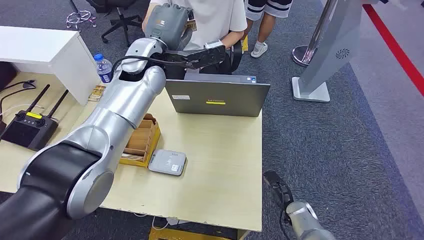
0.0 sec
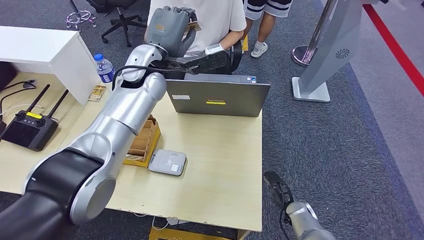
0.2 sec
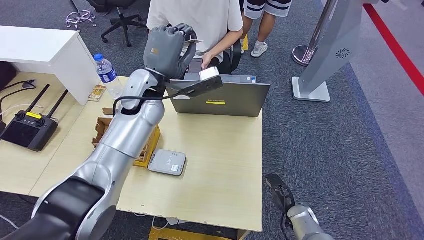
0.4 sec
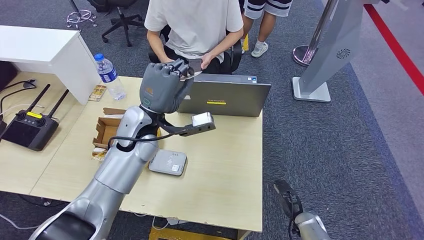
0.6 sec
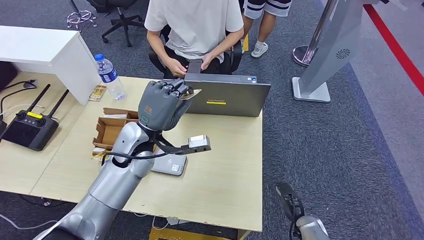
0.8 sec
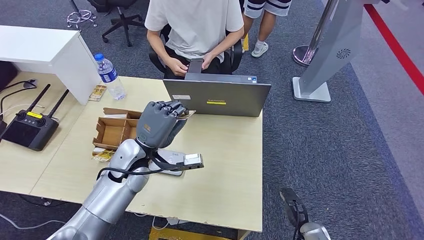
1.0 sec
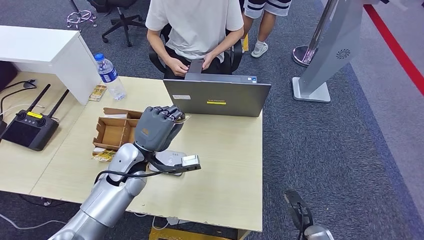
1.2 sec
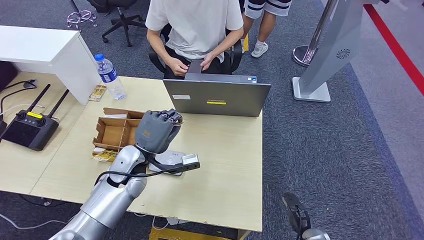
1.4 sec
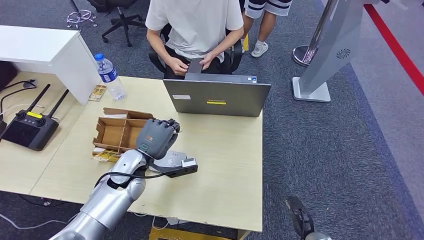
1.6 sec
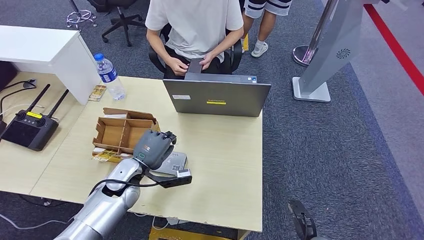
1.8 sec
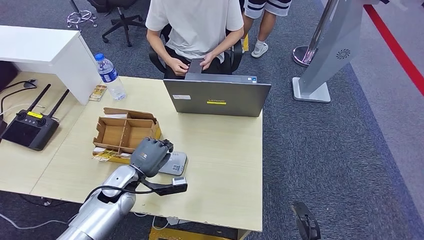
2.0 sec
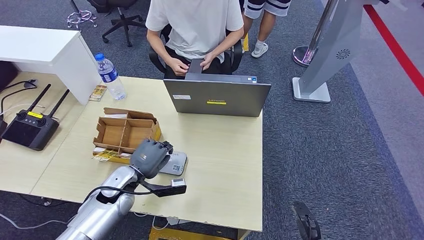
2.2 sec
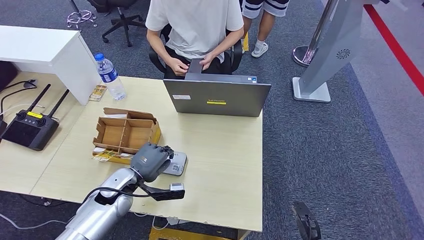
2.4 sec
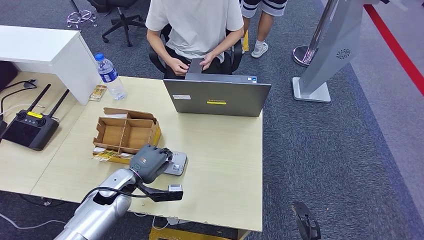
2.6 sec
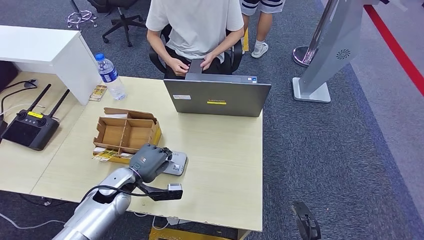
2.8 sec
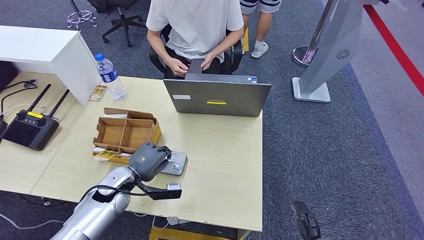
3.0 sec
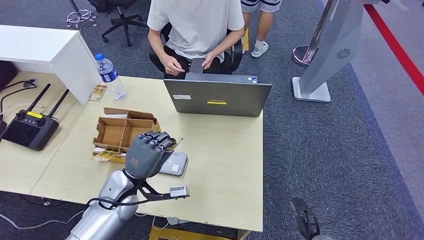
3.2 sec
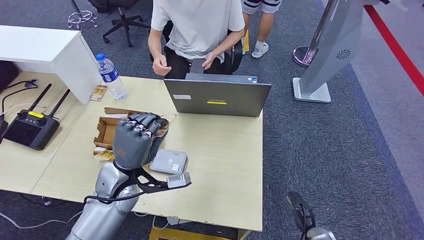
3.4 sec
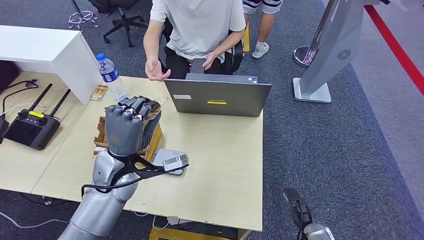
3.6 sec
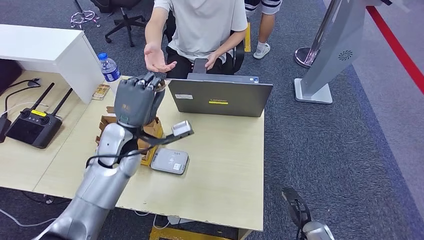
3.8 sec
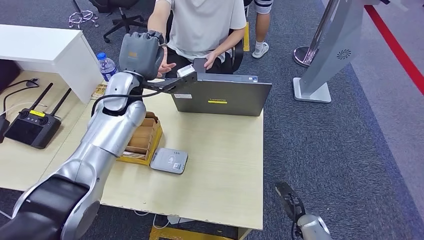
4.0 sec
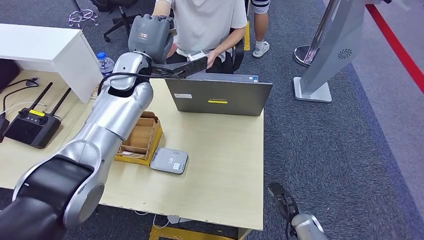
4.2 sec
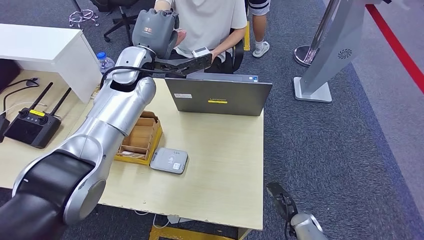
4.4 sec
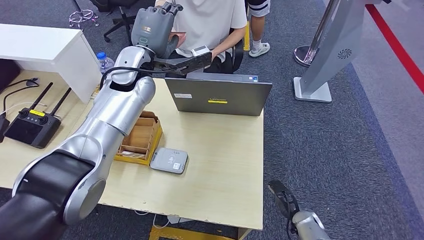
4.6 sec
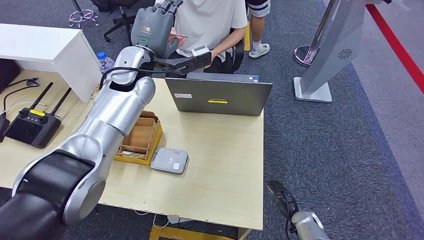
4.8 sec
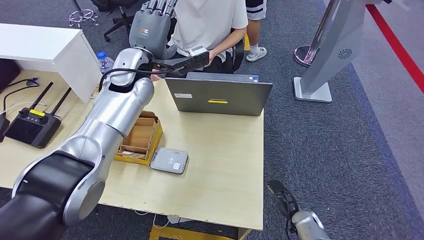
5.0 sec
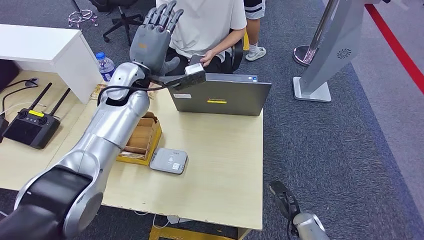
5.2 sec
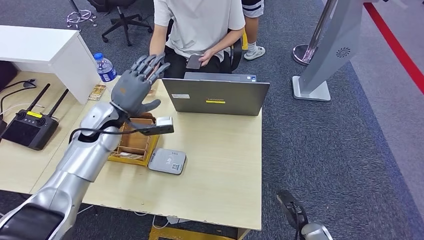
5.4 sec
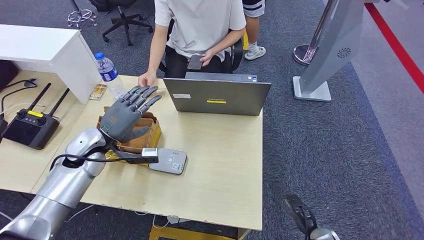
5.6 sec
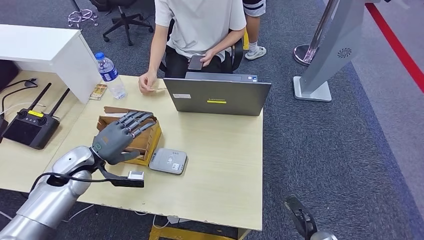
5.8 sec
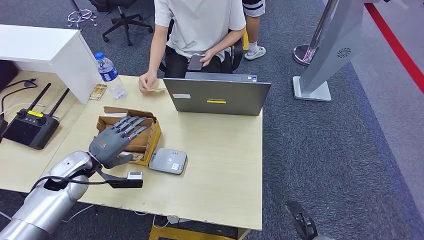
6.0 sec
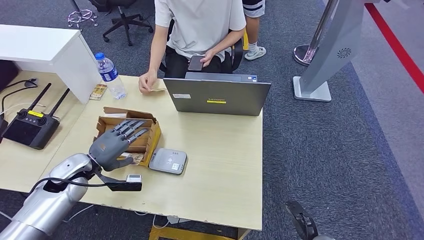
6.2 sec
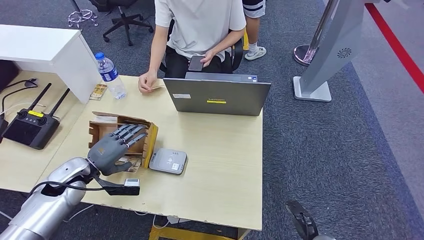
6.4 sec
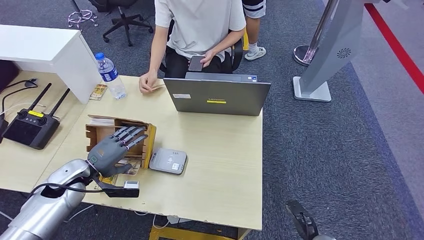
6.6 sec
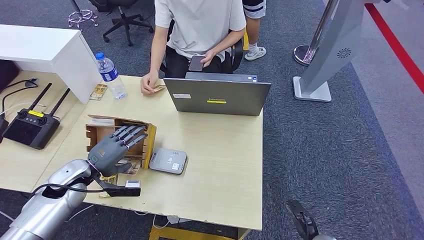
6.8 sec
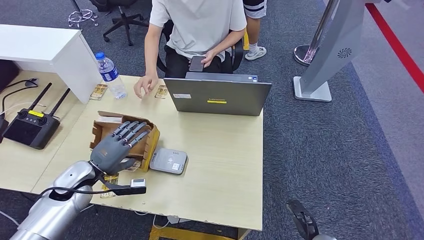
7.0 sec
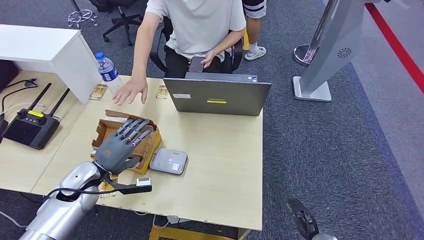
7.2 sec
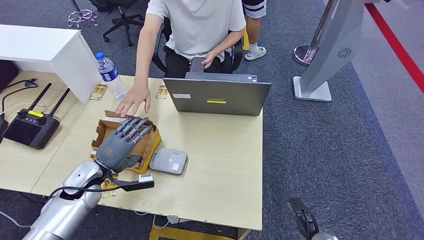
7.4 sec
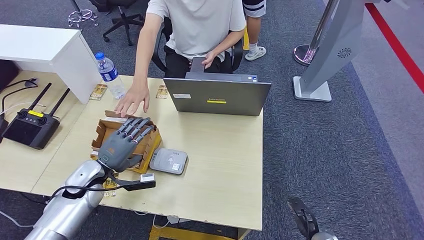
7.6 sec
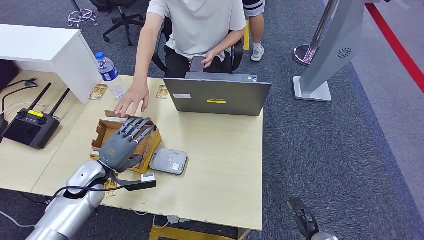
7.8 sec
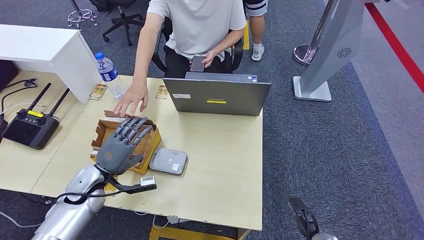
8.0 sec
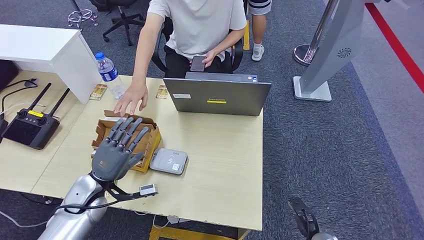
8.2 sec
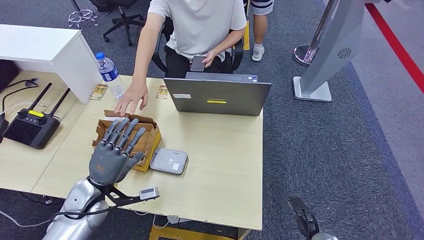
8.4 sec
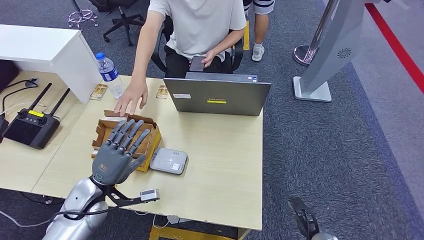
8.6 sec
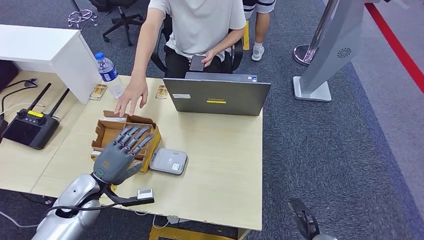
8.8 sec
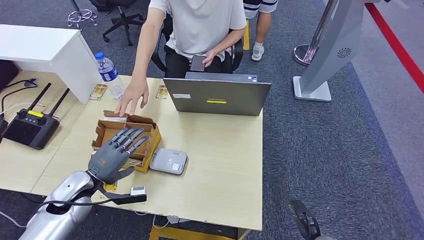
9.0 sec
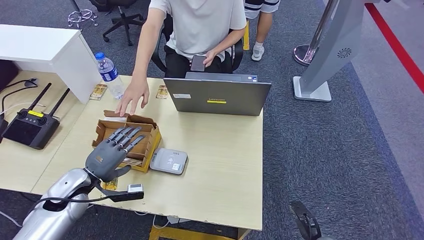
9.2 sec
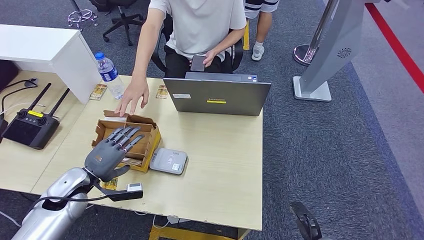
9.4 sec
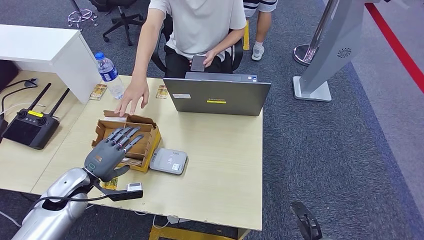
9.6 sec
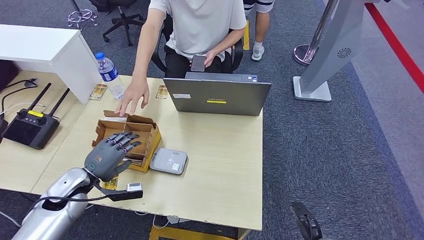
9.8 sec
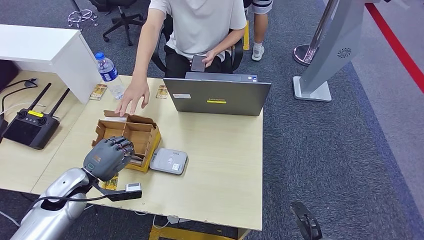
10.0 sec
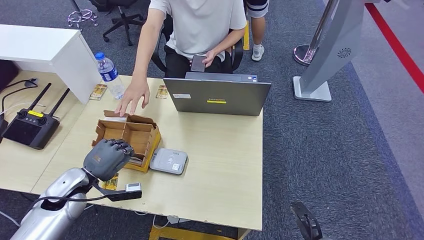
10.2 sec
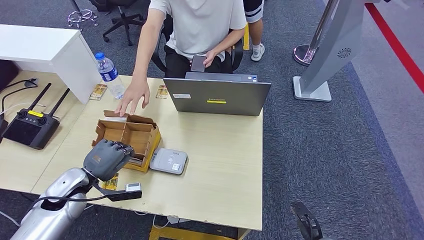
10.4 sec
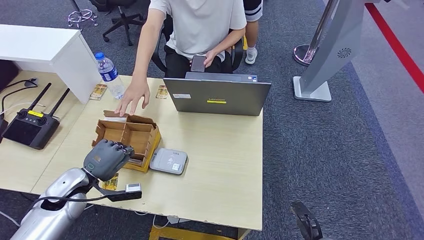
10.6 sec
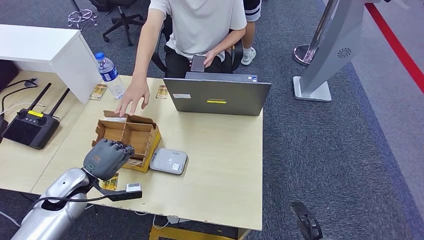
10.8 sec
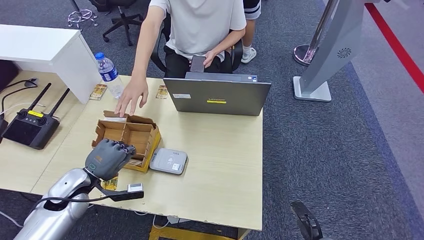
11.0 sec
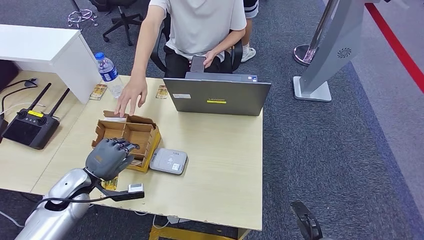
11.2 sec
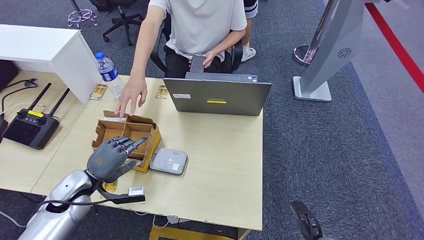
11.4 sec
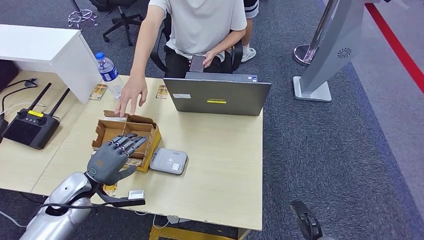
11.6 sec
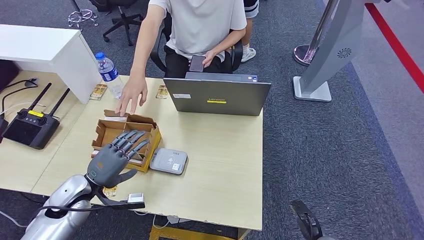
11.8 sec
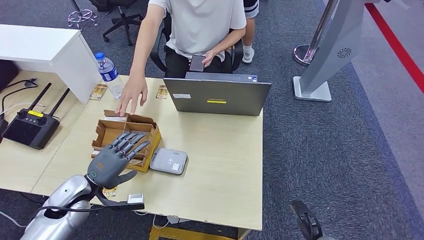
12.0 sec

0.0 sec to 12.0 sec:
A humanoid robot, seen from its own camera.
Step, 0.0 sec to 2.2 sec: Take the ID card from the person's hand.
Step, 2.6 sec to 4.0 sec: Place the ID card on the card reader.
Step, 4.2 sec to 5.8 sec: Hand the ID card to the person.
1.6 sec to 3.0 sec: The left hand heads to the left and downward, covering about 5 cm.
6.0 sec to 7.6 sec: There are only small adjustments of the hands.
9.0 sec to 12.0 sec: There are only small adjustments of the hands.

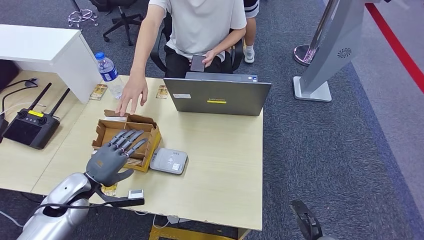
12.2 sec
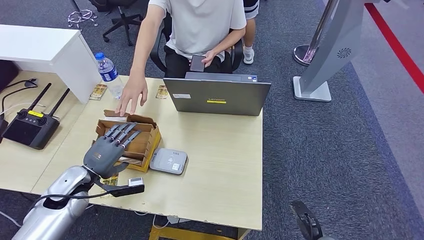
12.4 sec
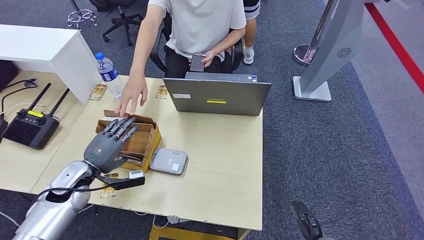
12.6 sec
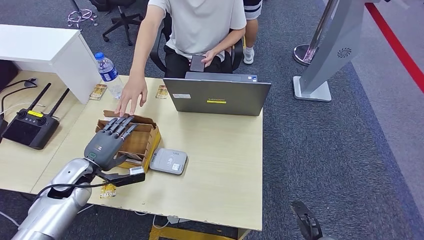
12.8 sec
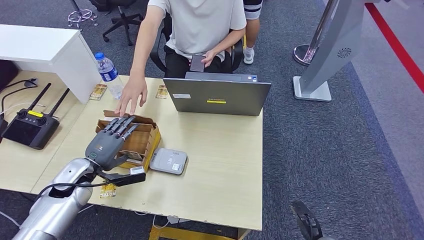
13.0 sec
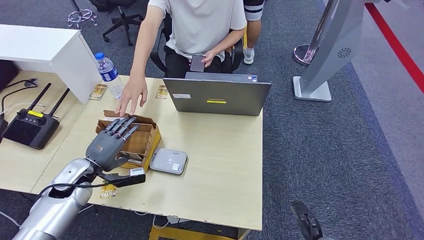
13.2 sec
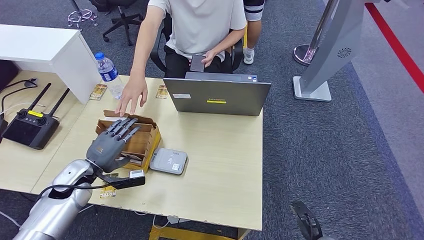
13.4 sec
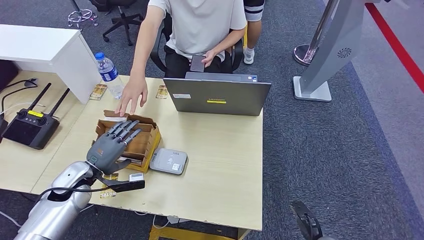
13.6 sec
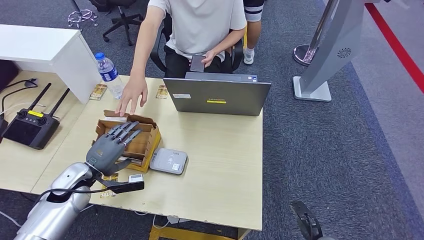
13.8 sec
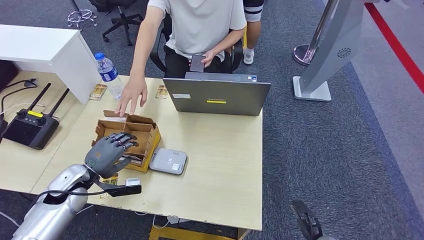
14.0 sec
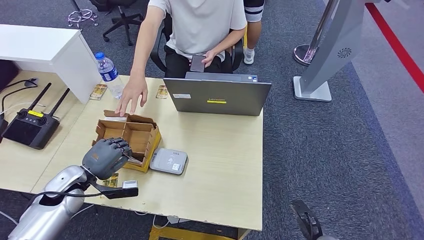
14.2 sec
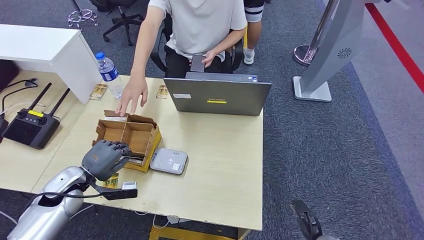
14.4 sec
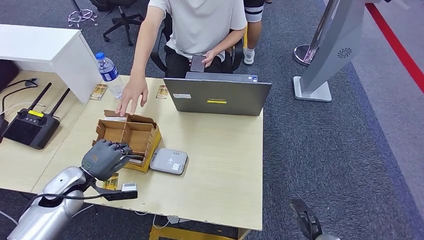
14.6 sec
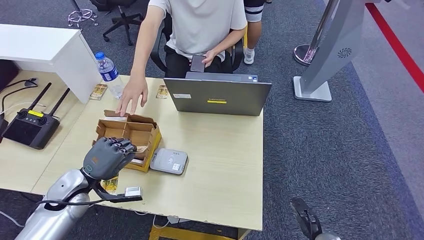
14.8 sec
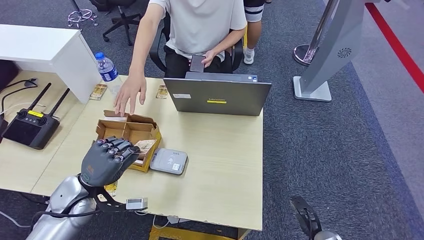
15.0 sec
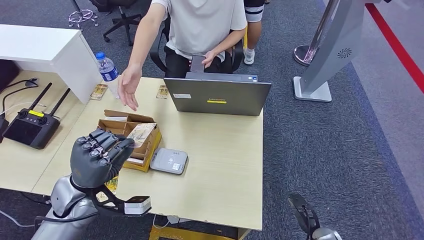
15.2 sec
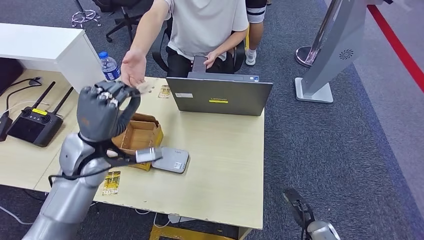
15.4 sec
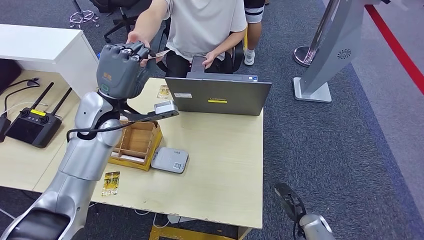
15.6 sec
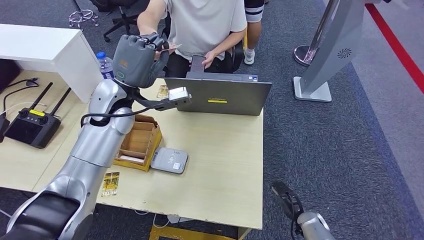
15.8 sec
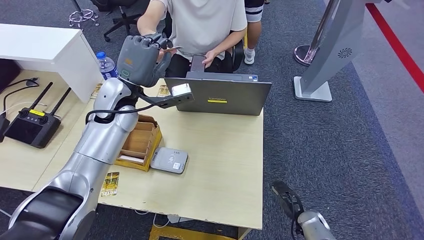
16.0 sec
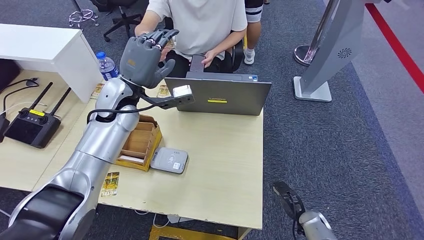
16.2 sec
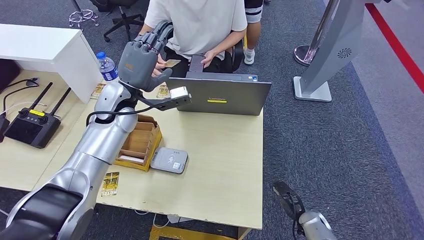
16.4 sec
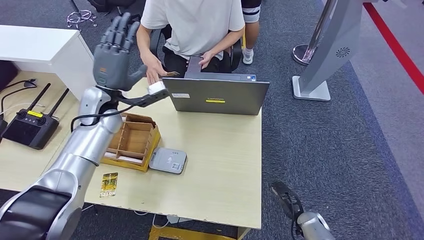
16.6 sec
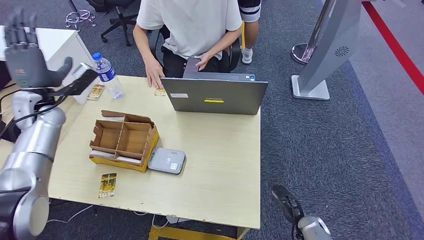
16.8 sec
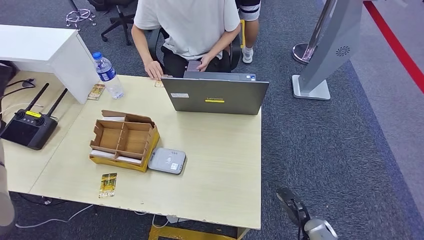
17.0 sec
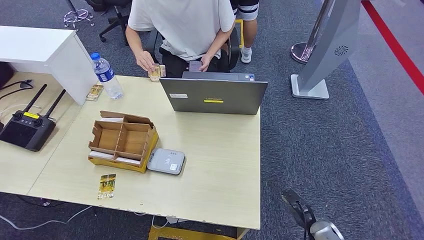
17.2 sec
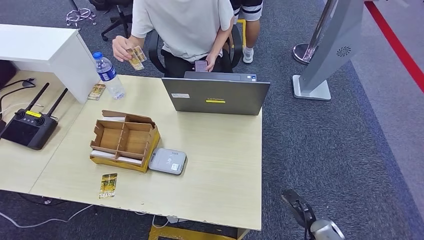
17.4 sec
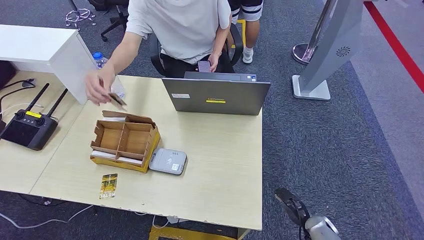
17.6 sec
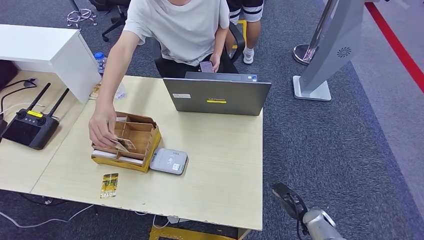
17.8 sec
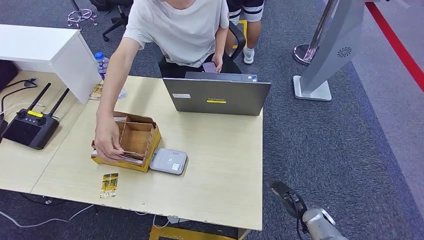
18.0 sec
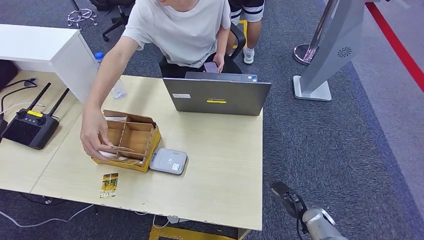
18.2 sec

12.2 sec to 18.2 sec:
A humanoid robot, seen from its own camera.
Step, 12.2 sec to 15.4 sec: Pick up the room key from the key card box.
Step, 15.6 sec to 18.2 sec: Hand the room key to the person.
12.2 sec to 13.8 sec: The hands stay close to where they were, moving slightly.
13.8 sec to 15.2 sec: The left hand is displaced to the right and upward by some 10 cm.
16.6 sec to 18.2 sec: The left hand heads backward, downward and to the left, covering about 50 cm.
